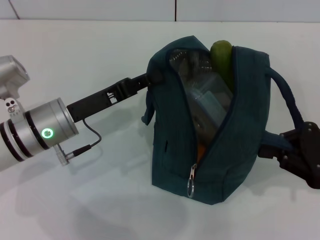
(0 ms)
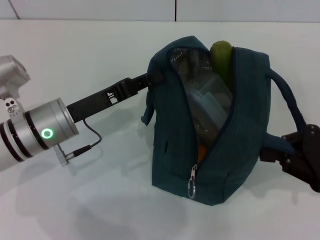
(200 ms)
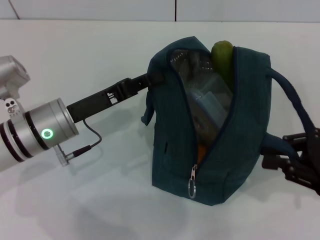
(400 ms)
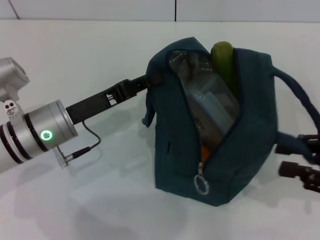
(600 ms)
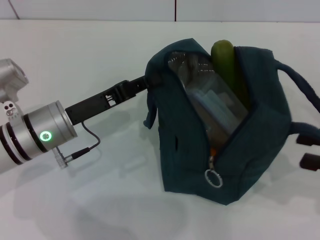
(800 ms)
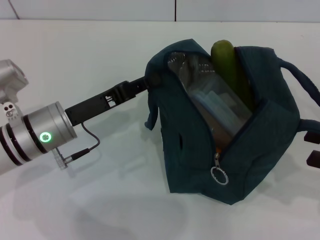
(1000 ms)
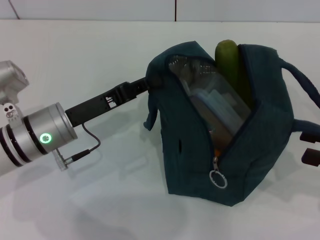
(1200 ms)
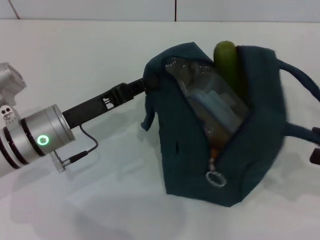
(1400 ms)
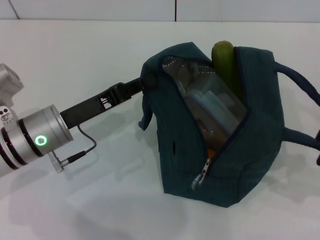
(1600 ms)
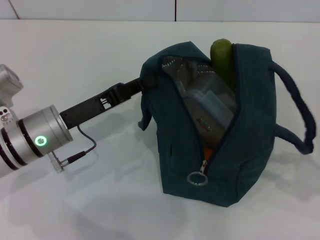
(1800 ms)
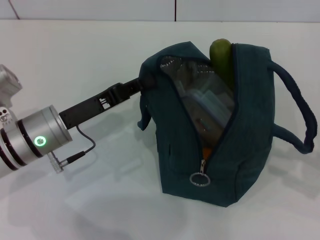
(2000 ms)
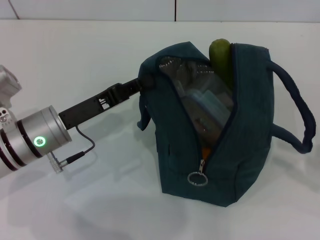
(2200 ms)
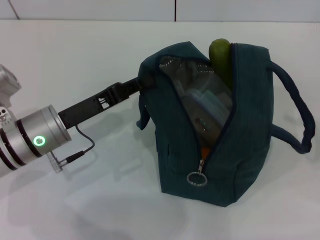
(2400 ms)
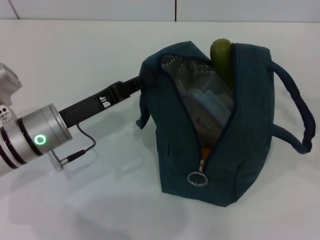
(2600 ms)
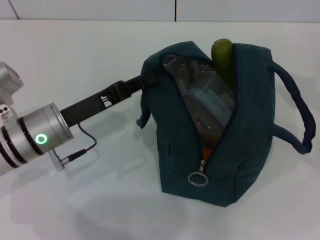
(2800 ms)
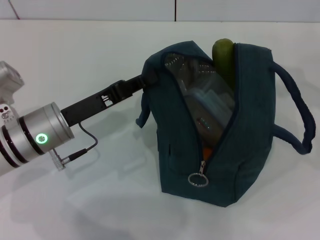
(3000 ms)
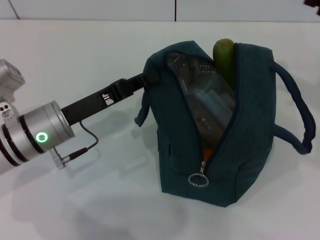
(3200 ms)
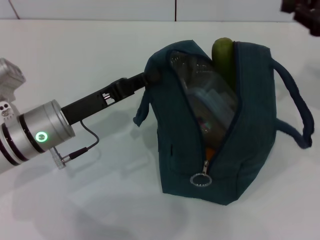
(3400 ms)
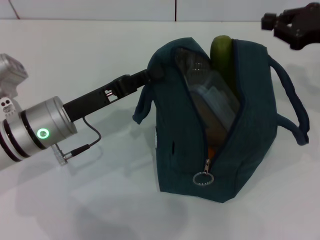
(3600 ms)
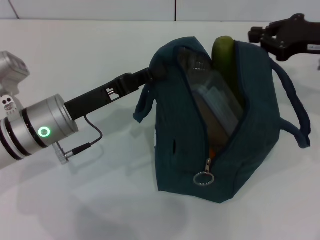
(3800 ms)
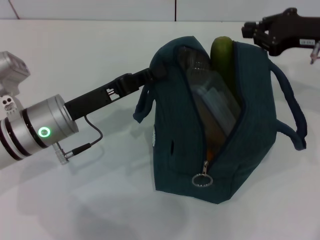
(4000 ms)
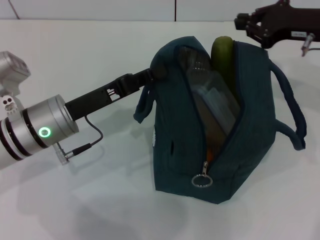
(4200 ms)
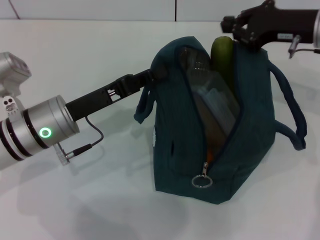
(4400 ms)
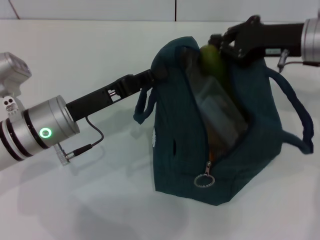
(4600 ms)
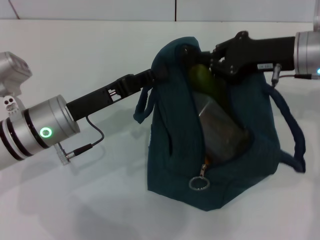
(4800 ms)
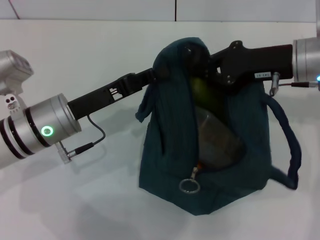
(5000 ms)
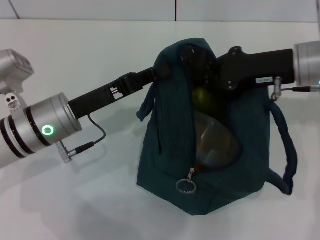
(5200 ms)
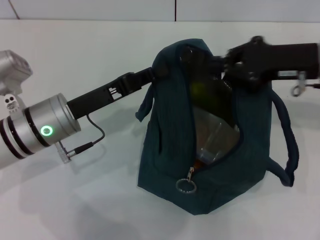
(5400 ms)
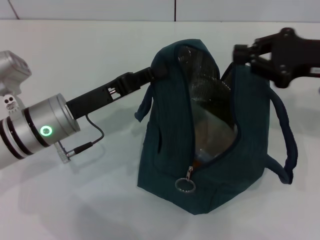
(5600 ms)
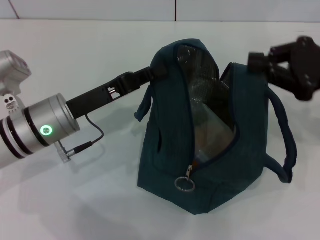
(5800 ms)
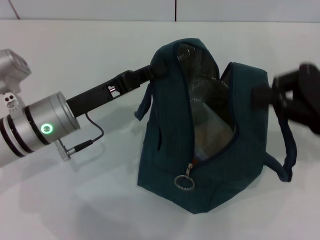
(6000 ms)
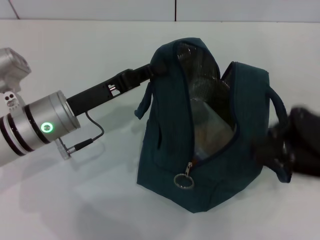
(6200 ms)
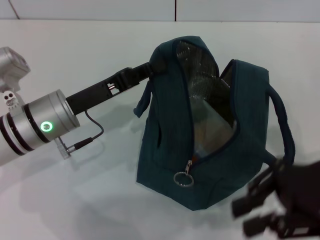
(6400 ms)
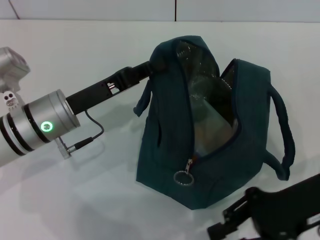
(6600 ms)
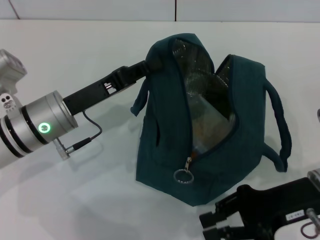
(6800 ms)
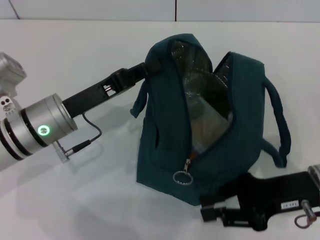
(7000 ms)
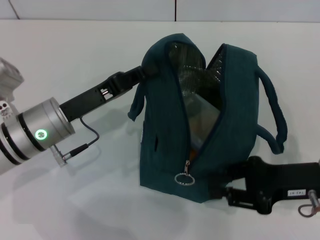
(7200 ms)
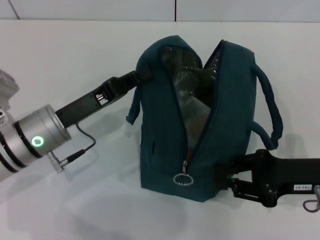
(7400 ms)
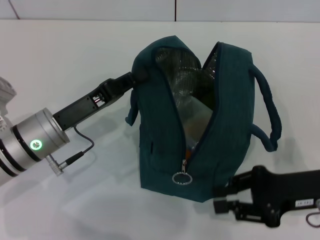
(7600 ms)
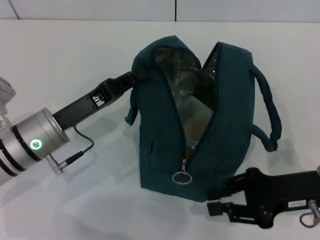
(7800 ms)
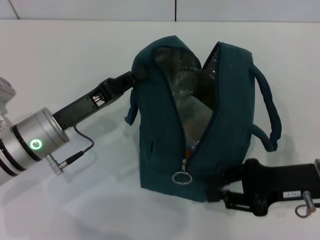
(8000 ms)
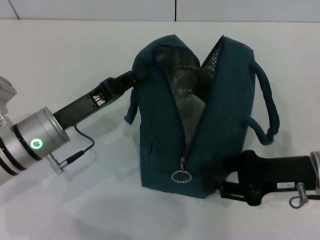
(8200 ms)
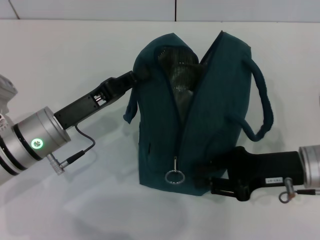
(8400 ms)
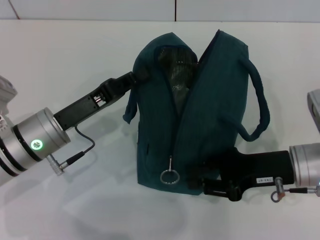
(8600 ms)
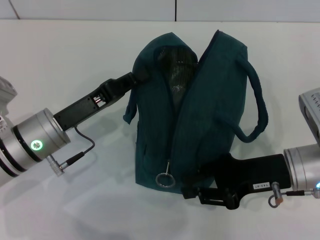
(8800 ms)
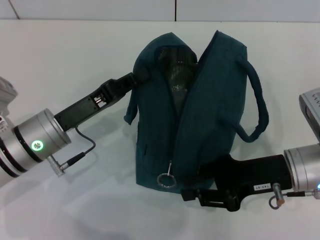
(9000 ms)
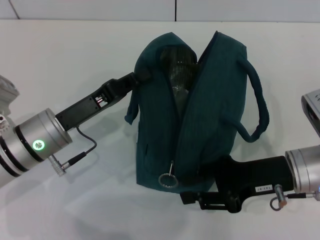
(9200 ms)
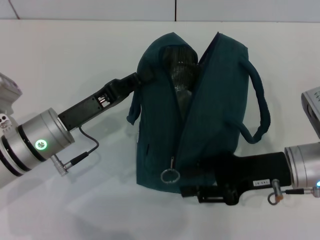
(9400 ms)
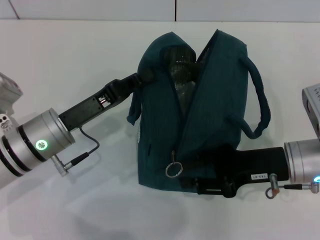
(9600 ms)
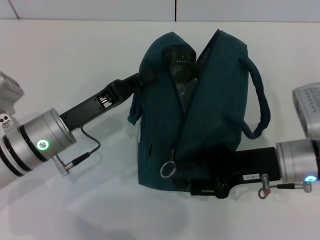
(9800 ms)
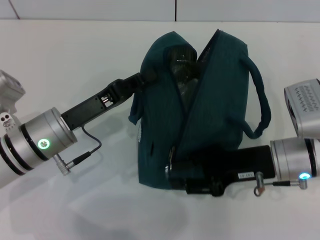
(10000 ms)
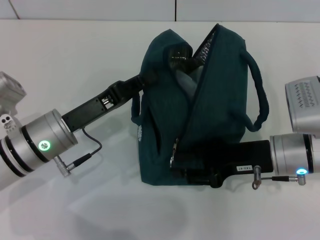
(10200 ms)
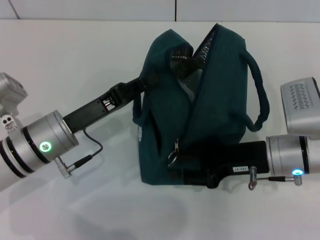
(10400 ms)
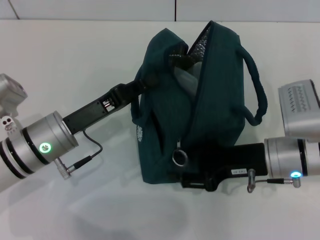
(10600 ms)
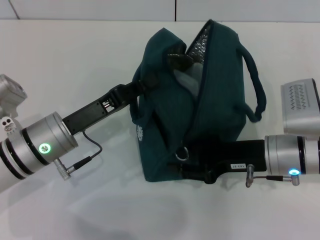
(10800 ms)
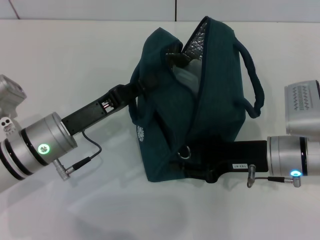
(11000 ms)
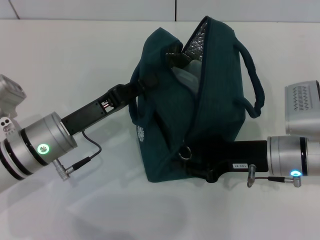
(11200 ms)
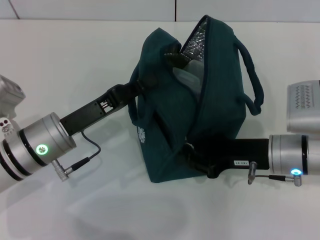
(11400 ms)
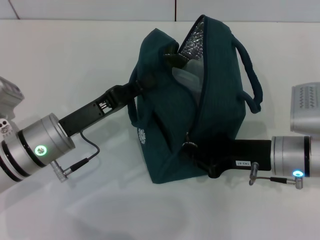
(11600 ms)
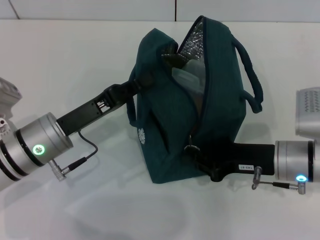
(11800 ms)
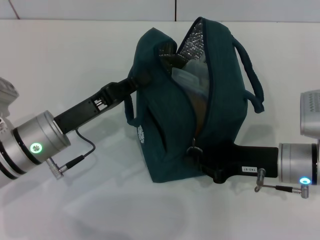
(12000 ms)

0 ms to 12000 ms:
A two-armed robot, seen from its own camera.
0 ms to 1600 ms: The right gripper shifts roughly 5 cm to the right, and opens.
1600 ms to 3000 ms: The right gripper heads forward and upward, covering about 15 cm.
3000 ms to 4400 ms: The right gripper heads to the left and forward, covering roughly 15 cm.
4400 ms to 6000 ms: The right gripper is displaced backward by approximately 10 cm.
6000 ms to 7600 ms: The right gripper shifts roughly 10 cm downward.
7600 ms to 9000 ms: The right gripper changes place by about 5 cm.
10400 ms to 12000 ms: The right gripper closes its fingers.

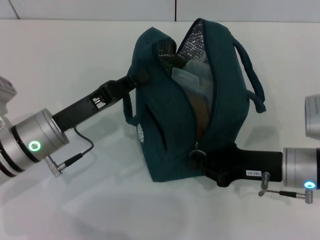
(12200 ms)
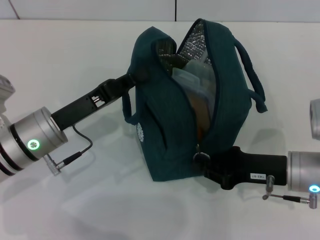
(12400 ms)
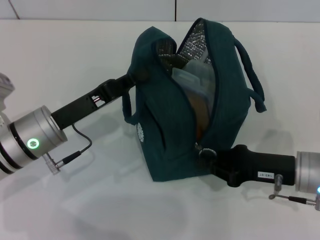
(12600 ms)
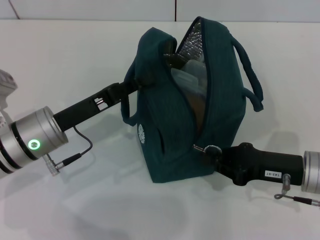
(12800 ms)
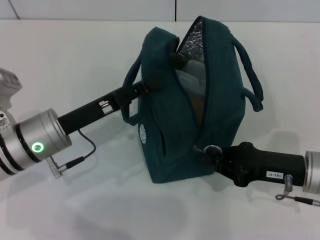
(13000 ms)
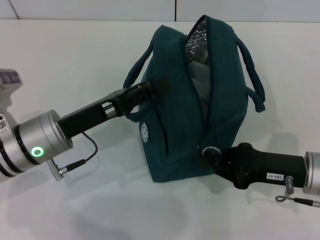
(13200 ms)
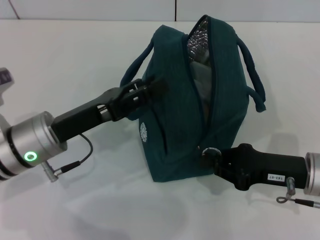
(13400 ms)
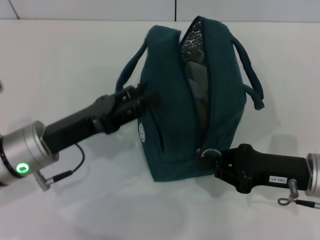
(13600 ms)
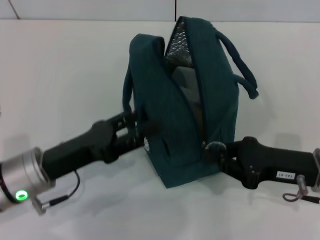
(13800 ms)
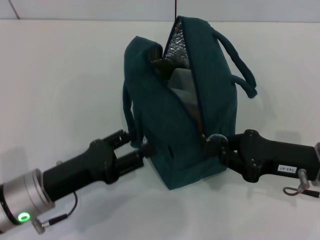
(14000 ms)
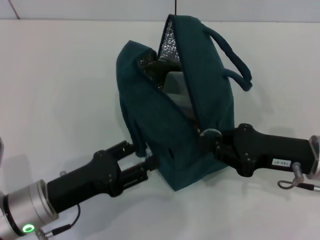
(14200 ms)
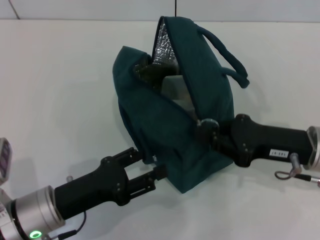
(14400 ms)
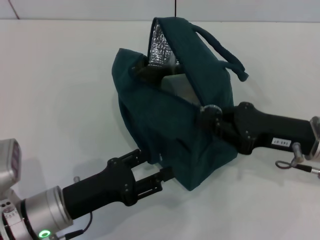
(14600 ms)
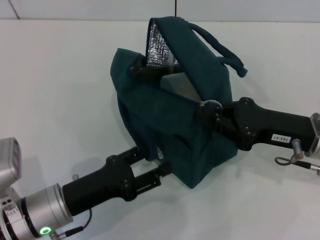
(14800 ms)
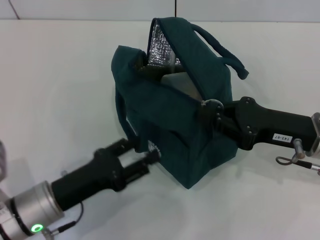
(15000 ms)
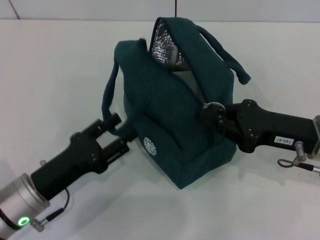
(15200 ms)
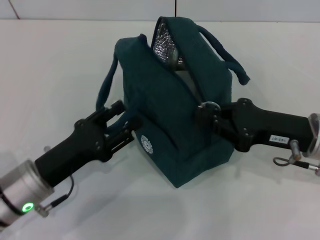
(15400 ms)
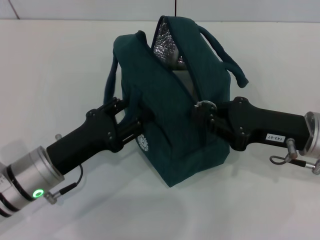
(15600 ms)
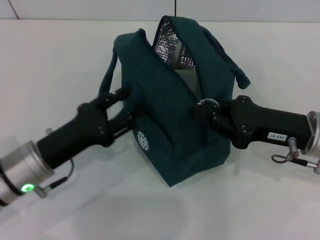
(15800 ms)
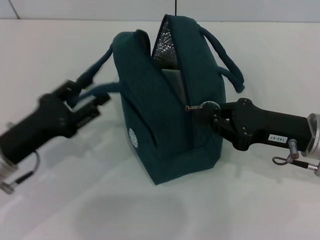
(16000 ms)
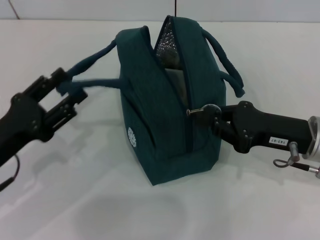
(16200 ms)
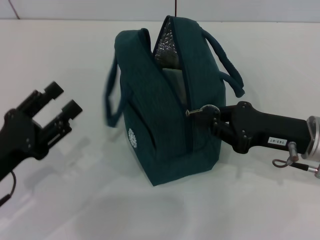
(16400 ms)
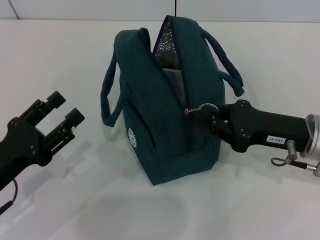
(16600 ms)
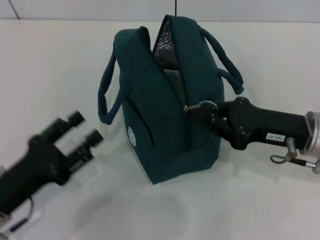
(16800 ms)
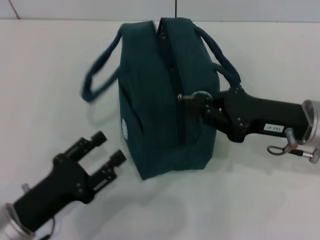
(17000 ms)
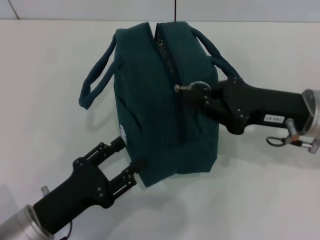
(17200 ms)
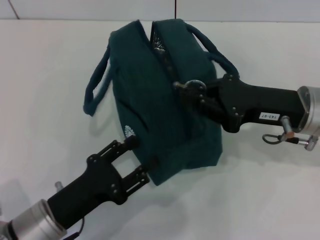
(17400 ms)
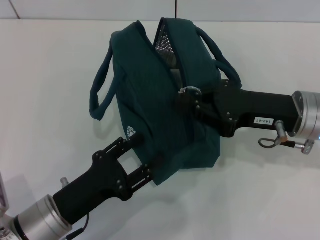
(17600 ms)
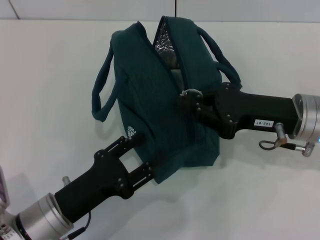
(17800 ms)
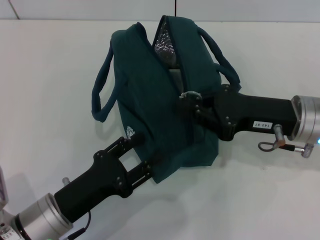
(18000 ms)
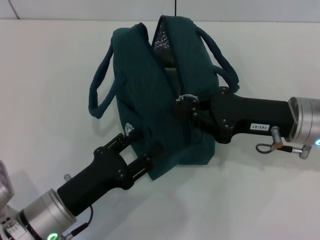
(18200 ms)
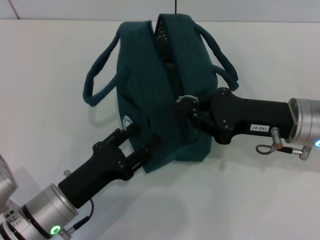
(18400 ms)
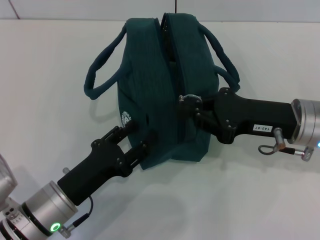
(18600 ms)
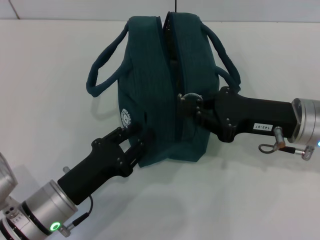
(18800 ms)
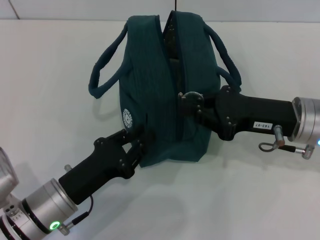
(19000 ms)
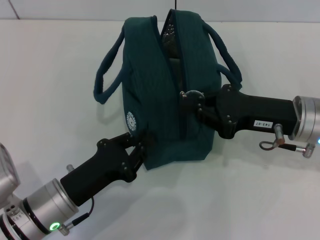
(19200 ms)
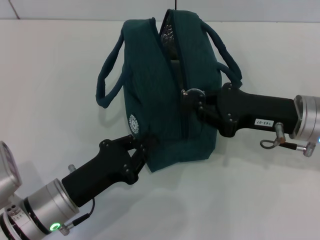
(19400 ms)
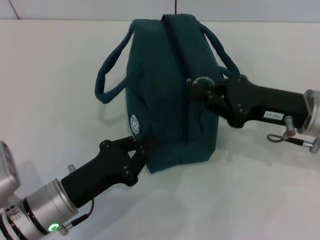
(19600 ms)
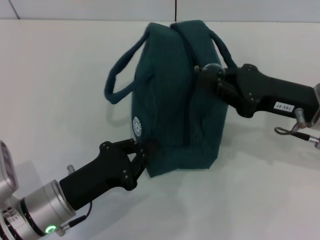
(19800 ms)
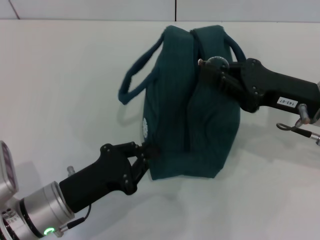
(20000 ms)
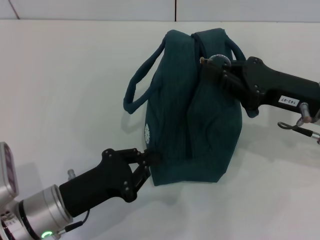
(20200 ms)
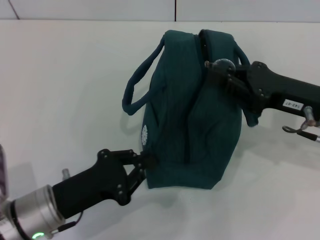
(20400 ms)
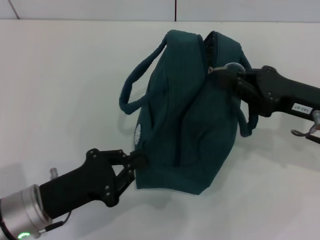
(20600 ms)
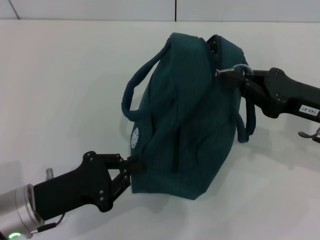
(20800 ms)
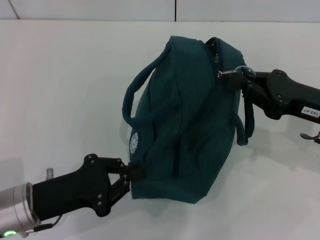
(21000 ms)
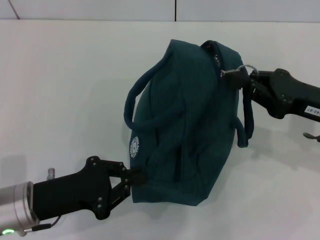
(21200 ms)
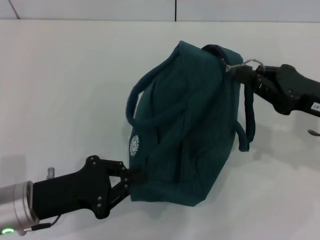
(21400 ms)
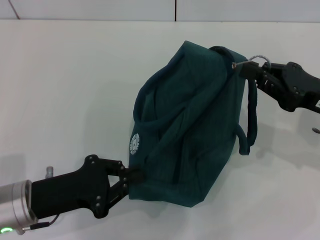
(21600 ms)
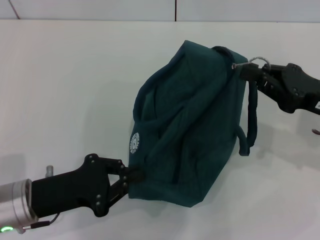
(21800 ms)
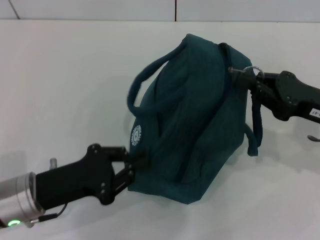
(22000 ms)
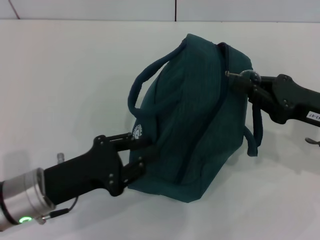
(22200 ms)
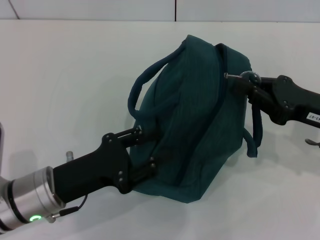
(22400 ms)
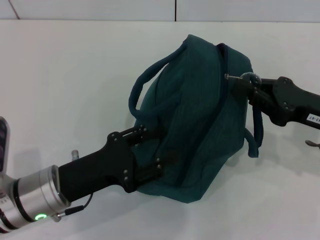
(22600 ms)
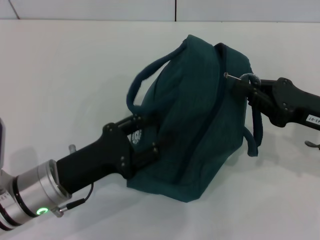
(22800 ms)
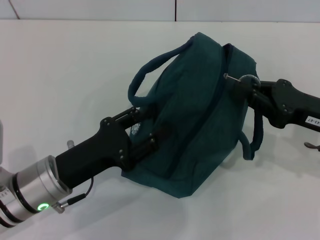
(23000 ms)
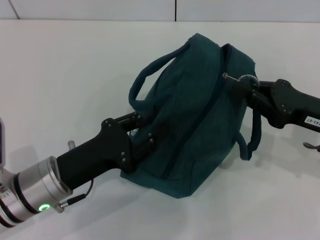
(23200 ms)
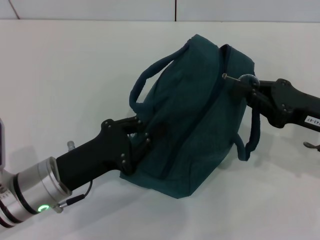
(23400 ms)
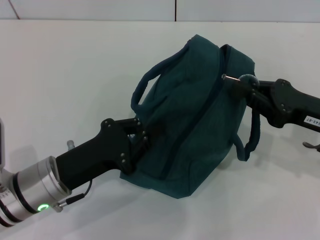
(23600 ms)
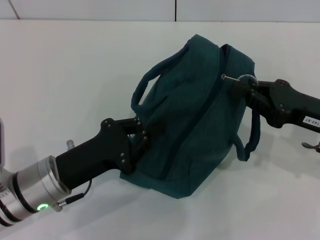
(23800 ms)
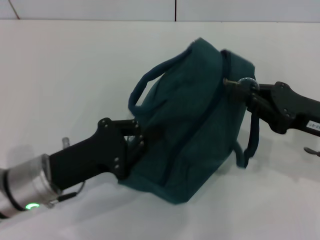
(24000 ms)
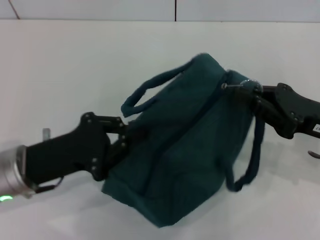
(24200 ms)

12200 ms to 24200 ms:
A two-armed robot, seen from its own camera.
12200 ms to 13800 ms: The left gripper opens.
15200 ms to 16600 ms: The left gripper heads to the left, covering roughly 5 cm.
16600 ms to 18200 ms: The left gripper goes about 10 cm to the right.
18200 ms to 19800 ms: The left gripper closes.
21200 ms to 22600 ms: The left gripper opens up.
22600 ms to 24200 ms: The left gripper closes its fingers.
